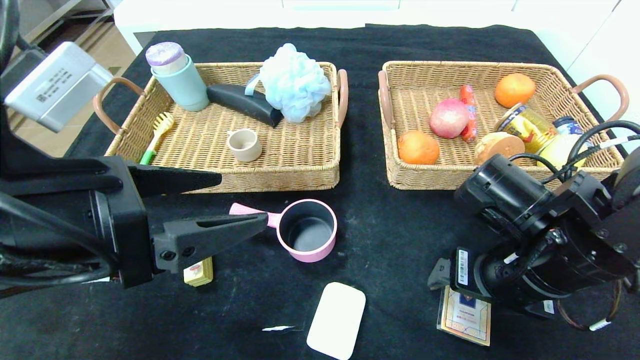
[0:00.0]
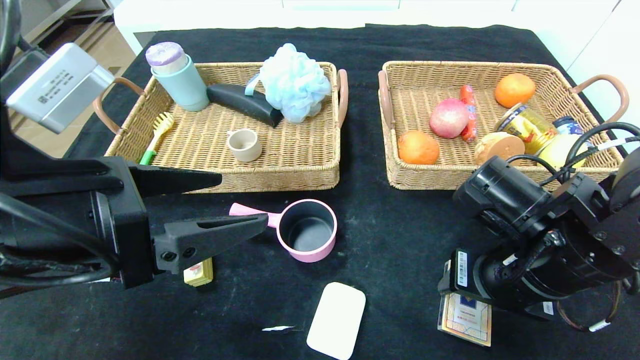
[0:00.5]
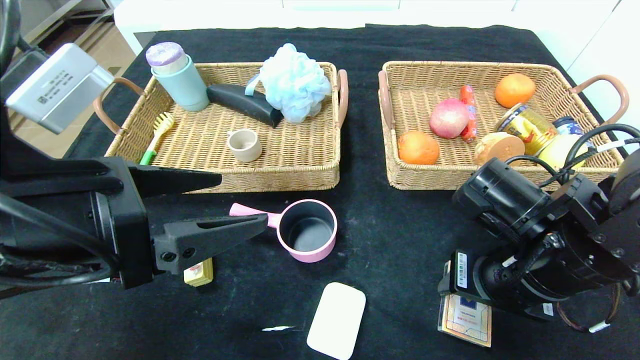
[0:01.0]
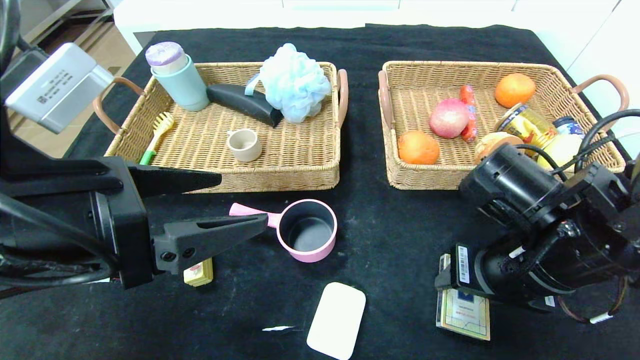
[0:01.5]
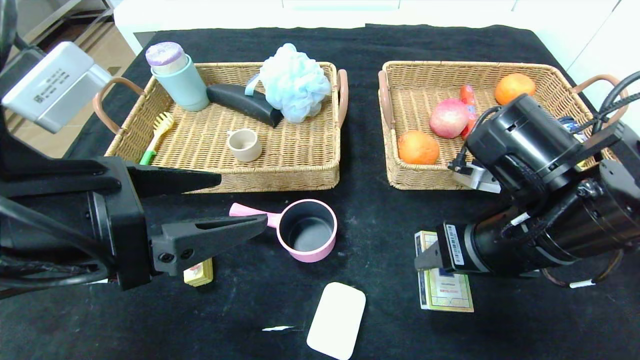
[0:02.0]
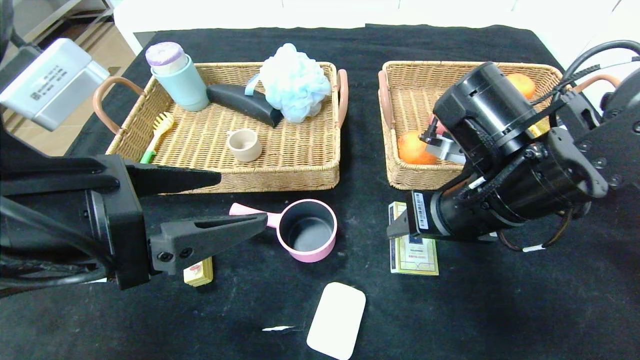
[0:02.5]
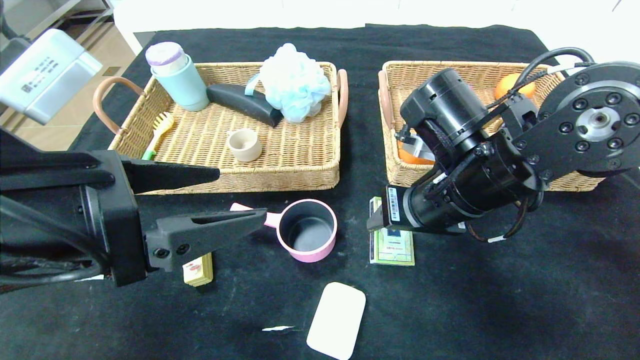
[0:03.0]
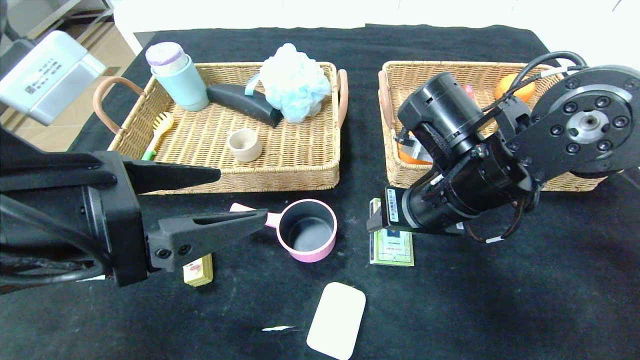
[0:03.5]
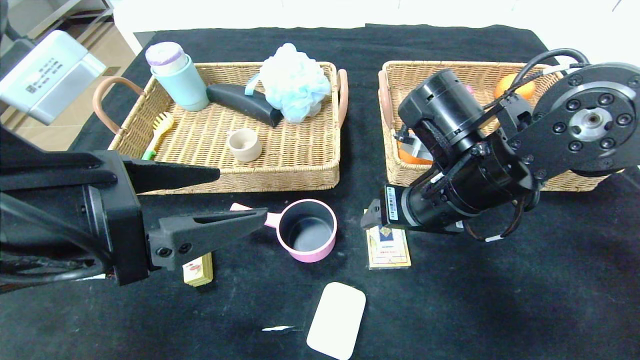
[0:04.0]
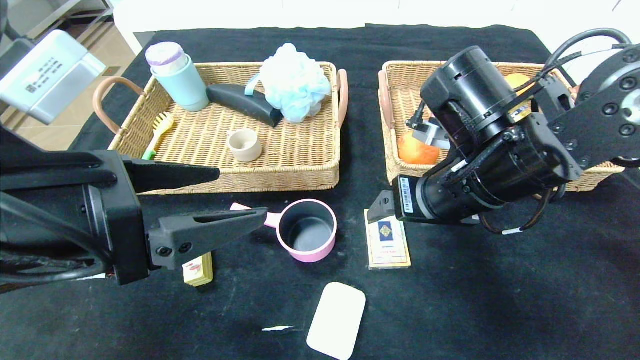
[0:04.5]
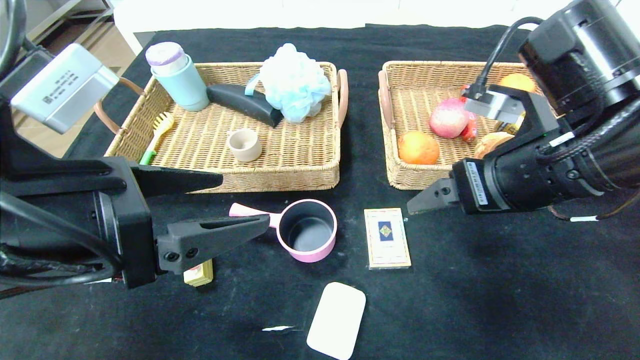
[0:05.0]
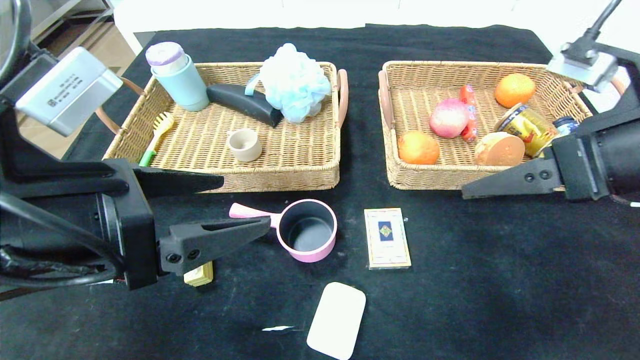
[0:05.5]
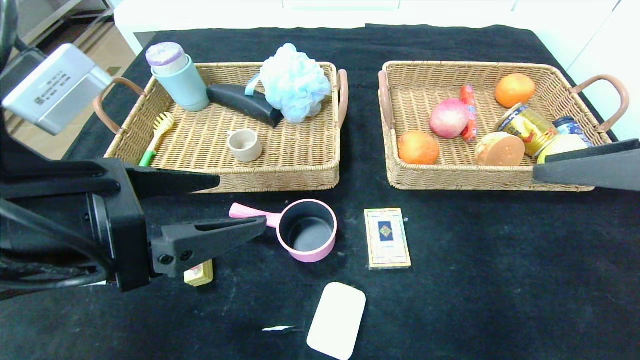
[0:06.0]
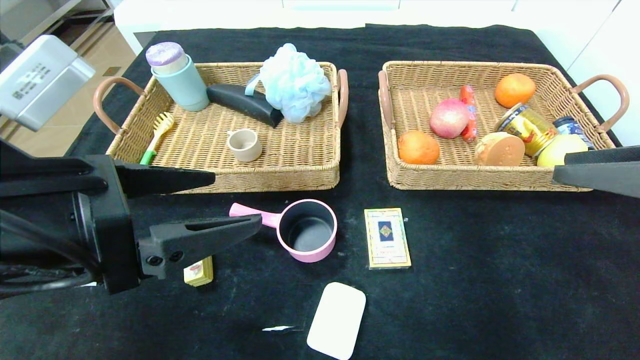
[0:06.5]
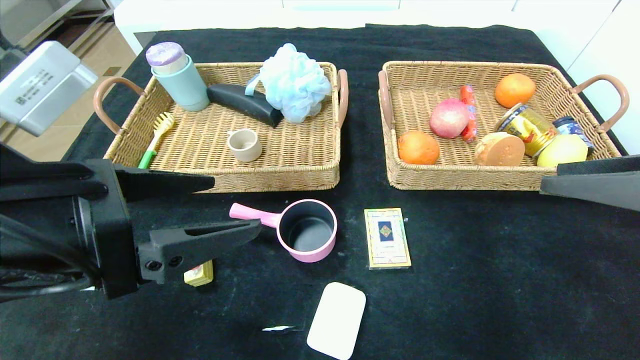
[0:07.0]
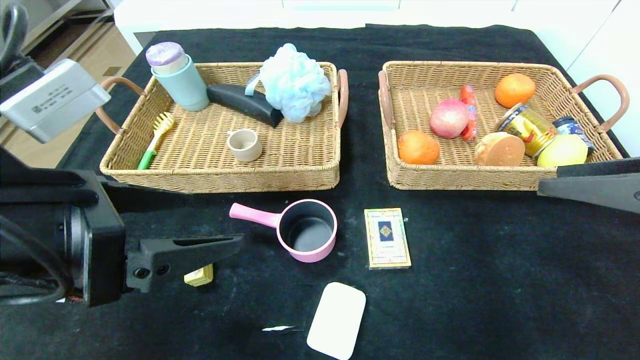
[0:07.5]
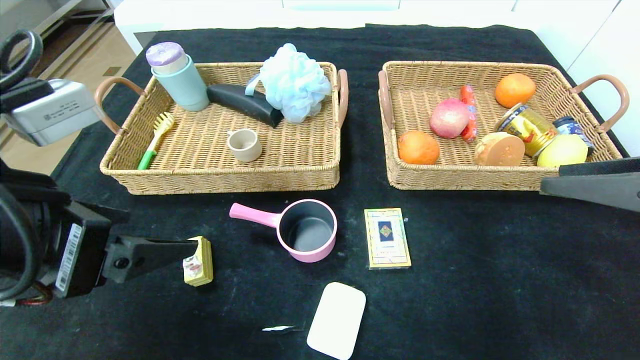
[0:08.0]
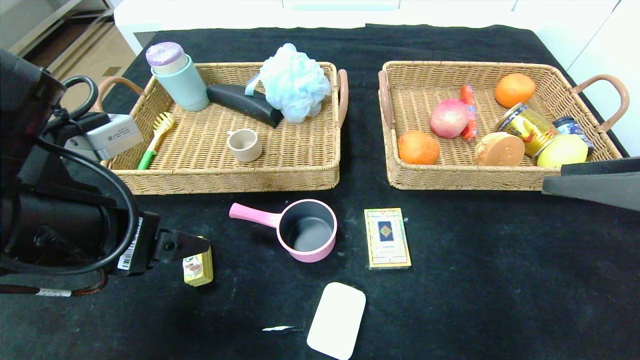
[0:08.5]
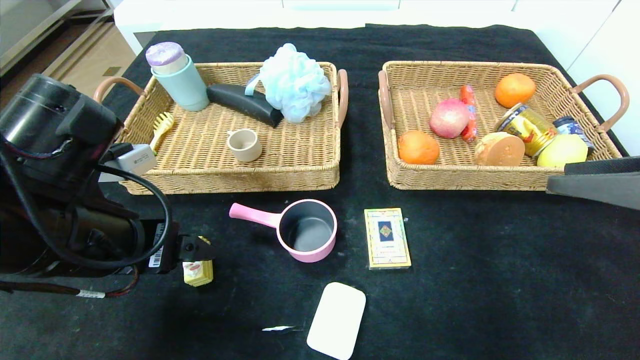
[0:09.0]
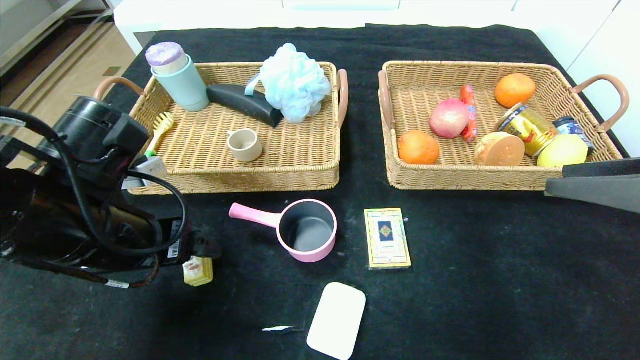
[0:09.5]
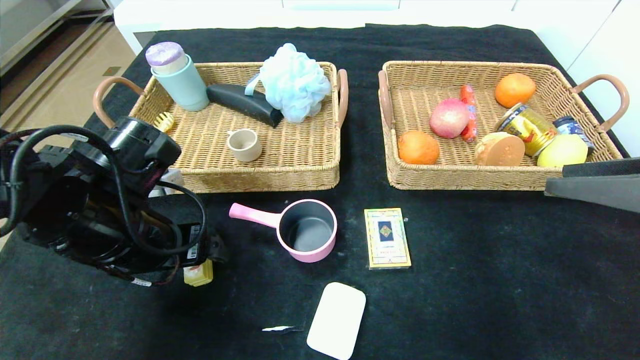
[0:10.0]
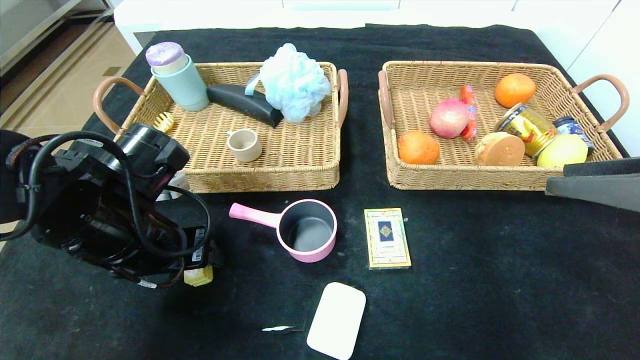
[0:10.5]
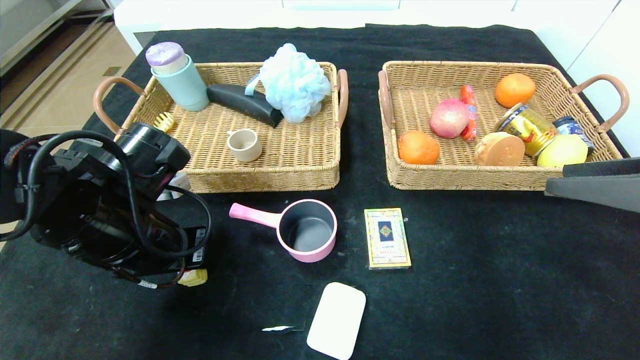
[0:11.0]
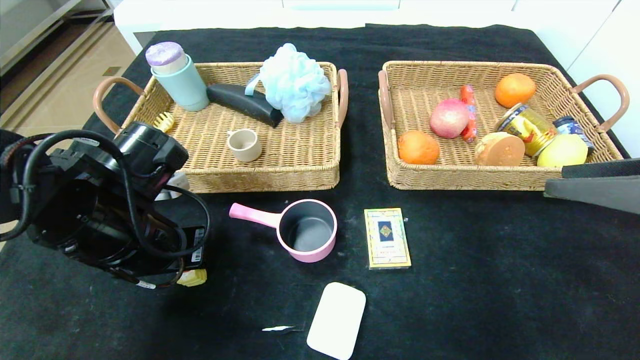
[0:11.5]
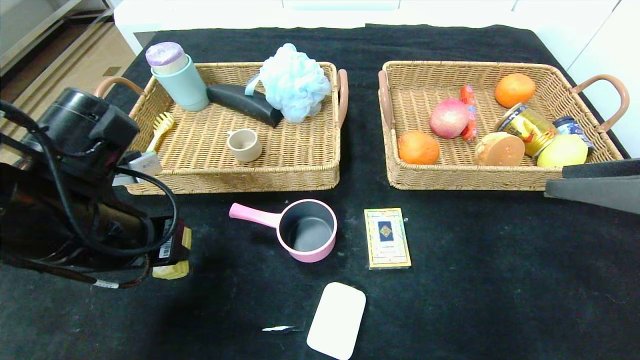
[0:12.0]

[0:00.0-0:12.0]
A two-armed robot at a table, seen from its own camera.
Step, 0.0 to 5.0 s: Place the playing cards in the center of the table.
0.0 to 2.0 s: The right gripper closes its fingers.
2.0 to 4.0 s: The right gripper is displaced forward by about 5 cm.
4.0 to 6.0 s: The right gripper is displaced to the right, backward and upward by approximately 20 cm.
8.0 to 10.0 s: The left gripper goes some 15 cm forward and downward.
10.0 to 12.0 s: The left gripper closes its fingers.

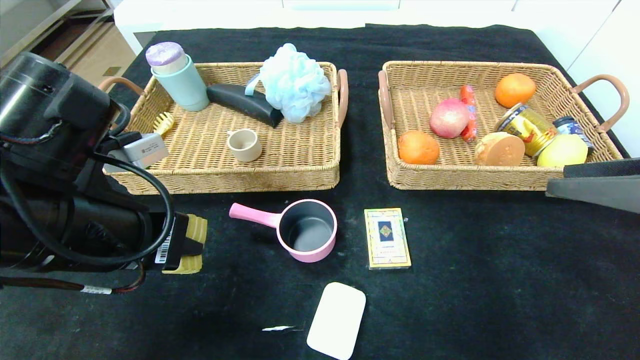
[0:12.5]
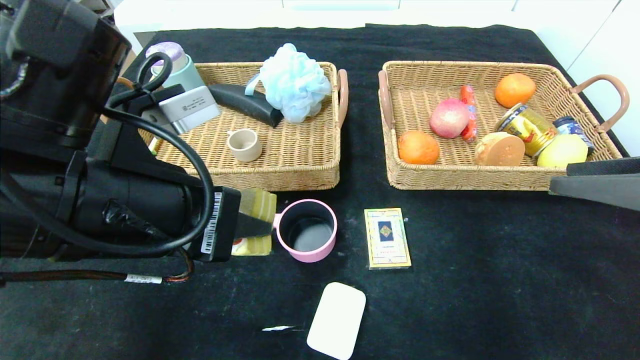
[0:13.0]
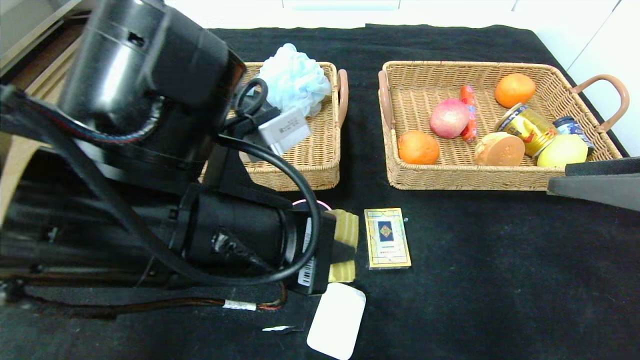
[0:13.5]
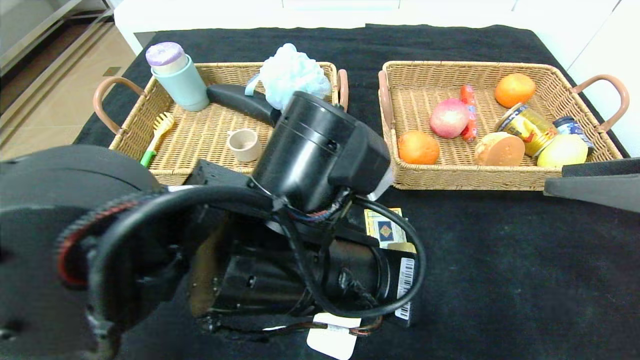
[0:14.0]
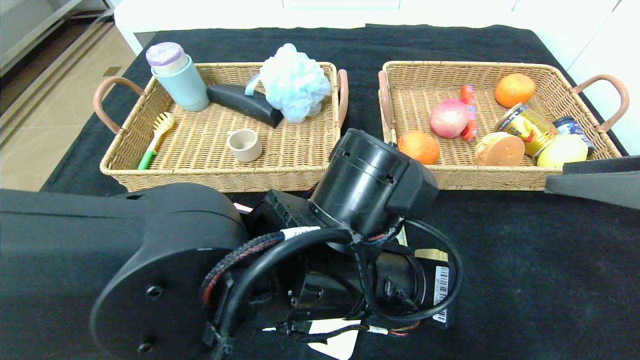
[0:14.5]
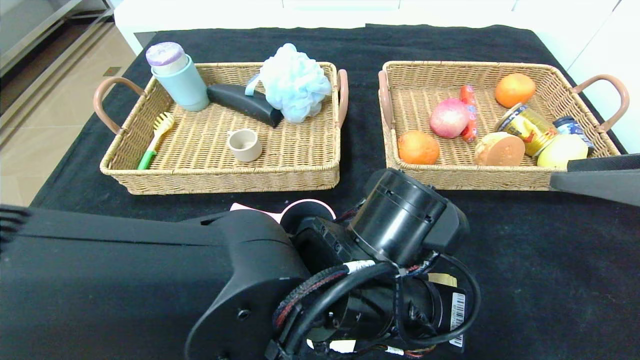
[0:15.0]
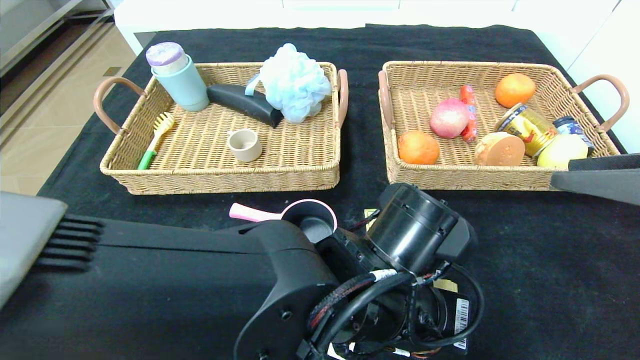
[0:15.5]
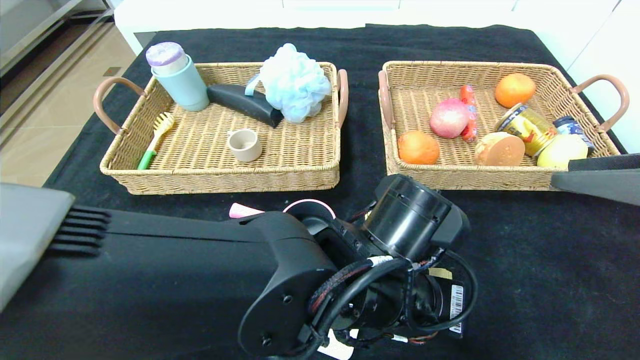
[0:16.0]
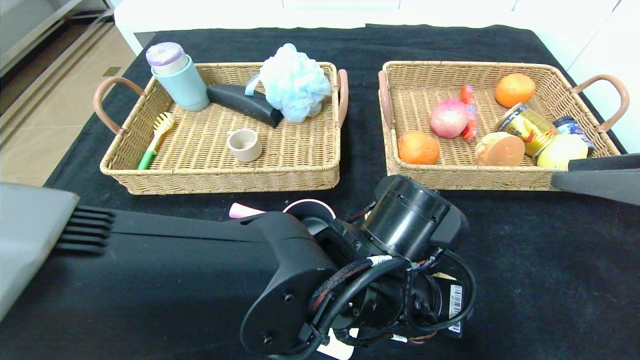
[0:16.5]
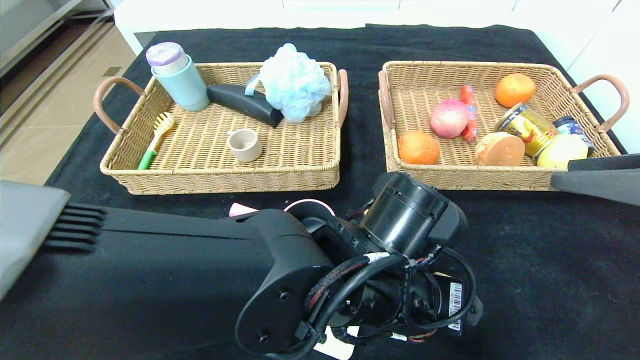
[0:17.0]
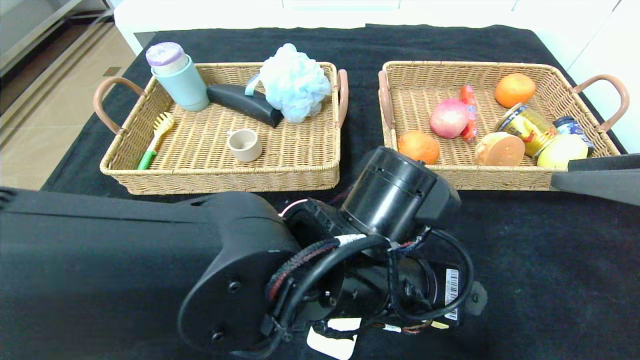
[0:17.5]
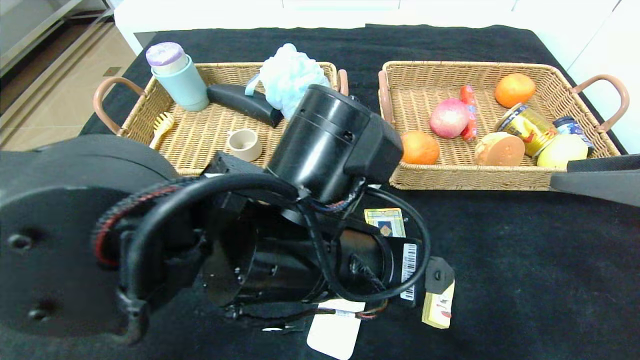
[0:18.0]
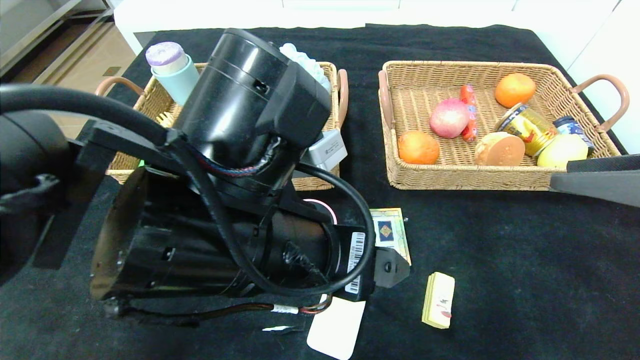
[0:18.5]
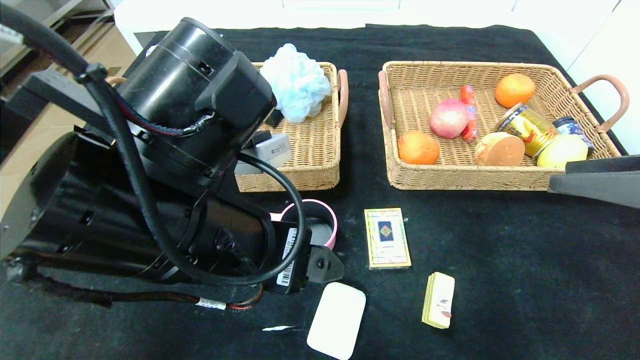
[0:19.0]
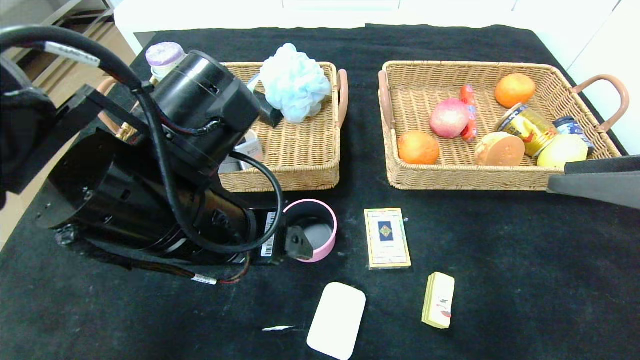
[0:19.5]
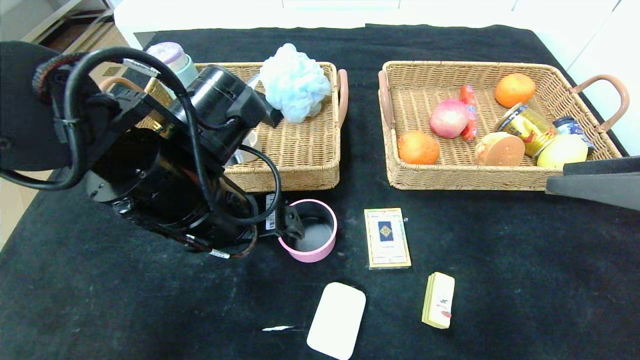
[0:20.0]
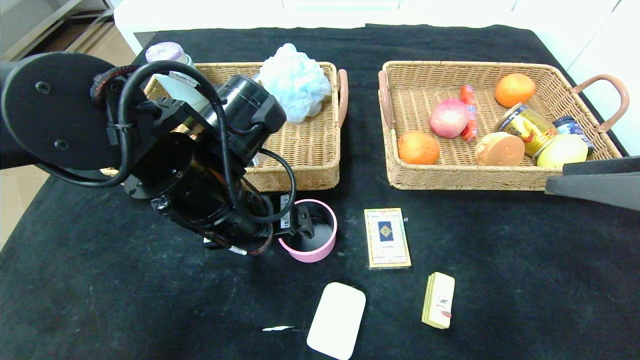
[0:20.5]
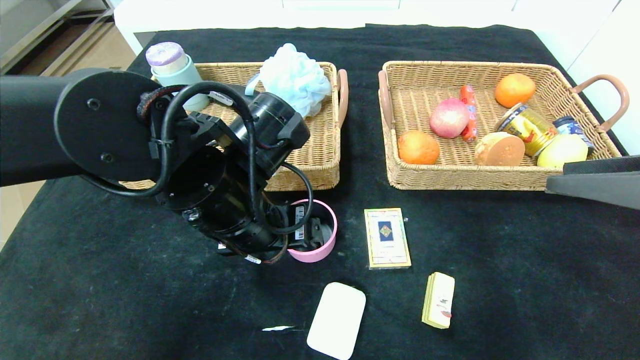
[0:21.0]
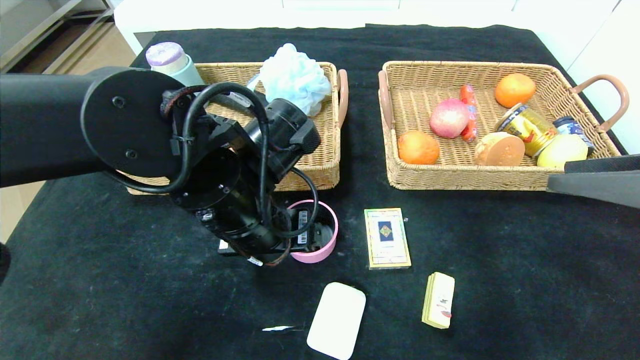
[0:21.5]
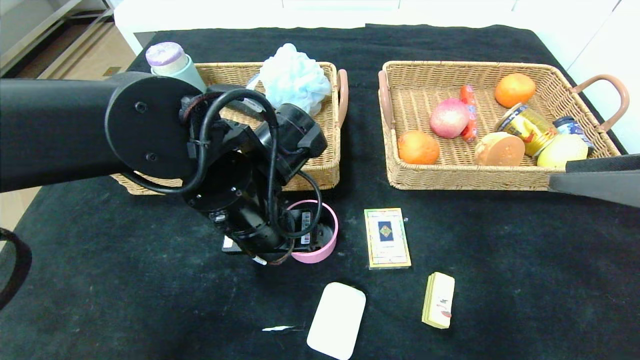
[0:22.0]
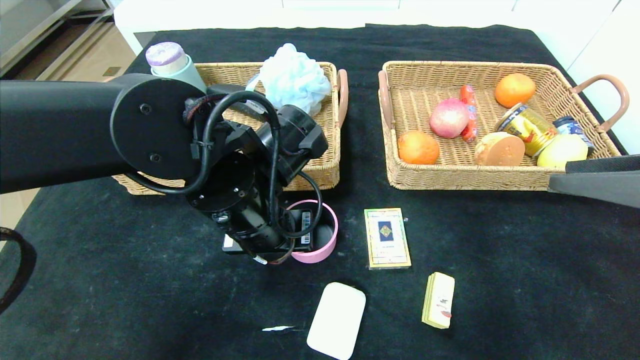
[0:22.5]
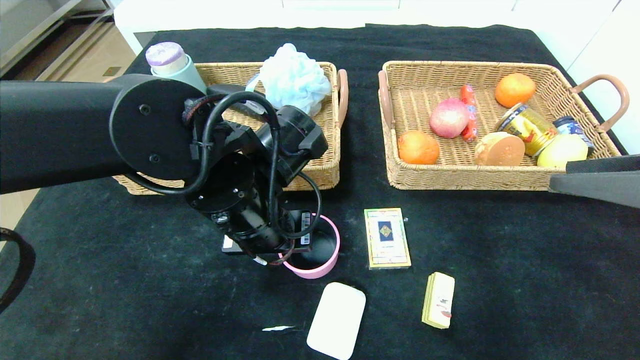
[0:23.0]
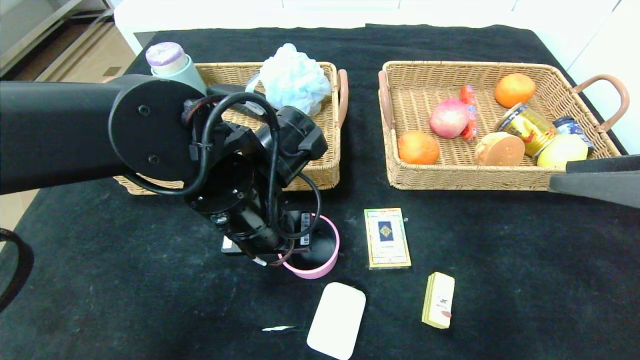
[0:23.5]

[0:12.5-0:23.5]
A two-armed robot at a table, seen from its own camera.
Step, 12.5 to 18.0 s: Place the yellow cake in the center of the table.
12.5 to 14.5 s: The left gripper goes approximately 20 cm to the right.
14.5 to 16.0 s: The left gripper shifts by roughly 5 cm.
16.0 to 18.0 s: The left gripper shifts approximately 10 cm upward and to the left, and opens.
18.0 to 20.0 s: The left gripper shifts approximately 10 cm to the left and forward.
20.0 to 21.5 s: The grippers move only a little.
21.5 to 23.5 s: The left gripper closes its fingers.
